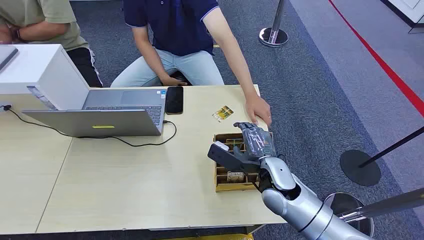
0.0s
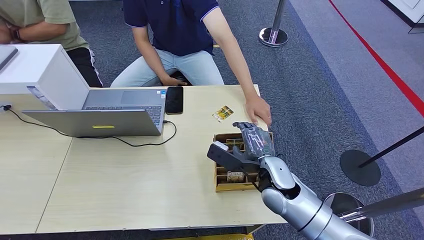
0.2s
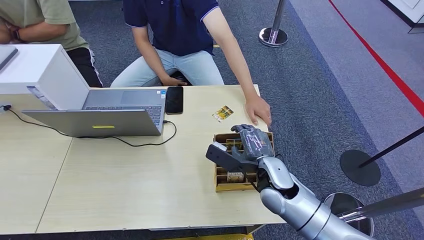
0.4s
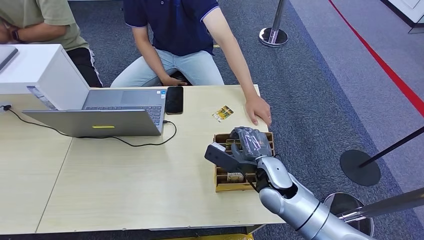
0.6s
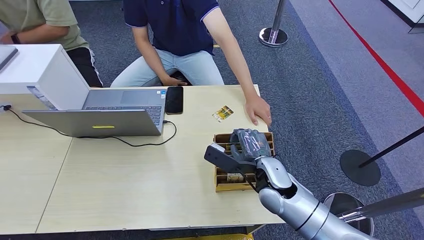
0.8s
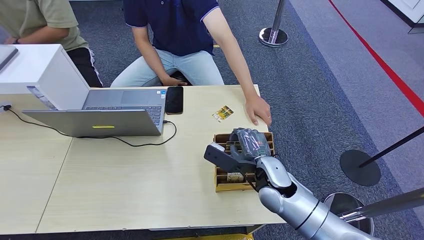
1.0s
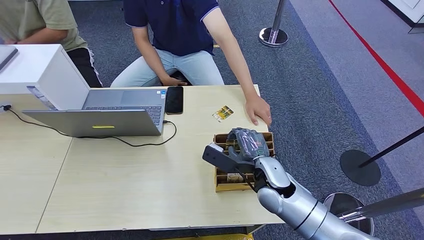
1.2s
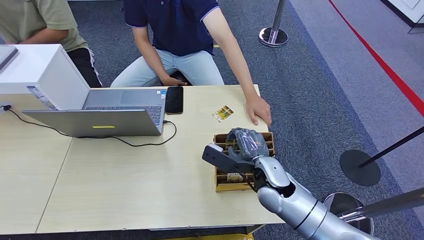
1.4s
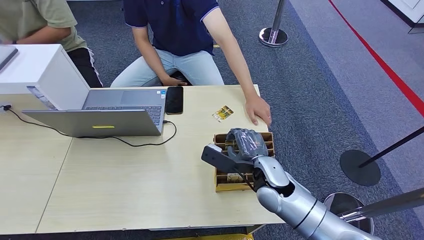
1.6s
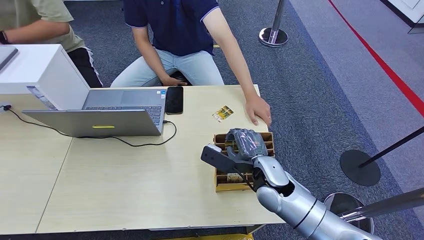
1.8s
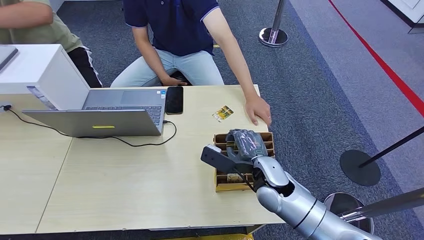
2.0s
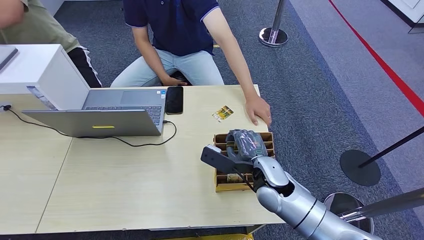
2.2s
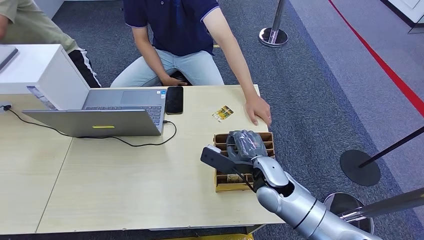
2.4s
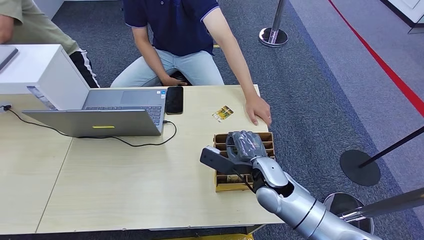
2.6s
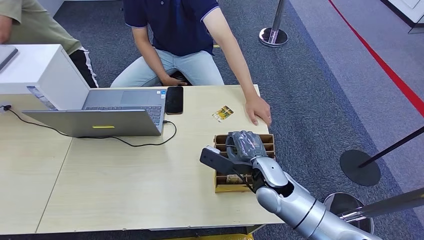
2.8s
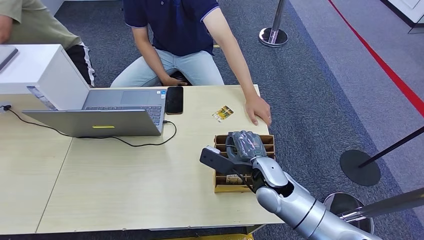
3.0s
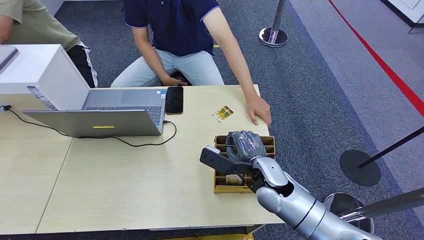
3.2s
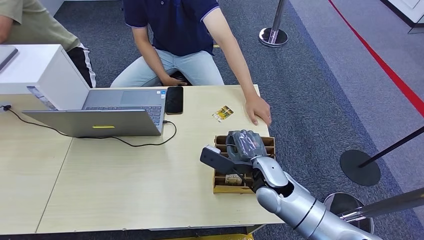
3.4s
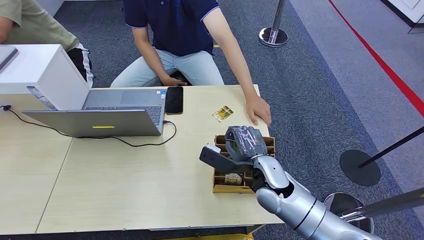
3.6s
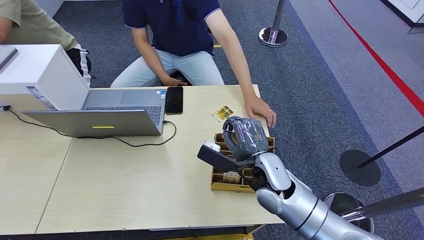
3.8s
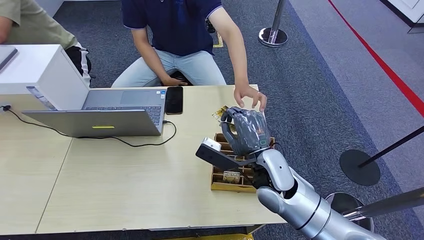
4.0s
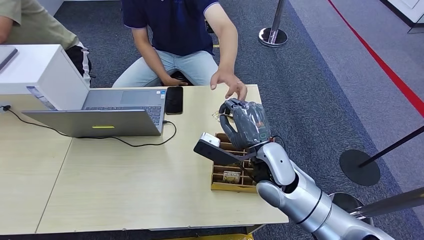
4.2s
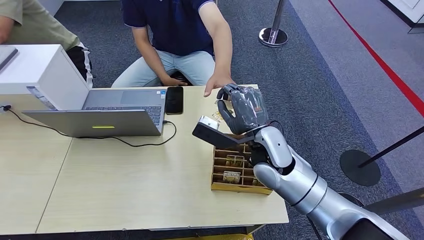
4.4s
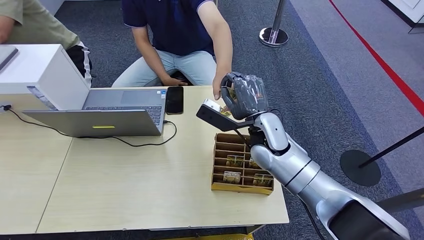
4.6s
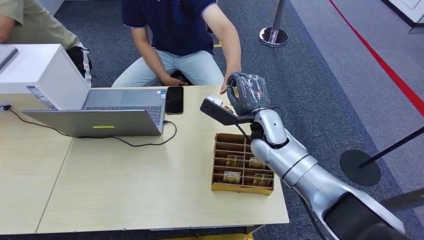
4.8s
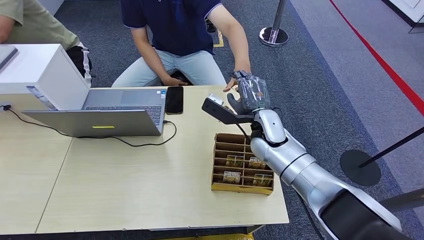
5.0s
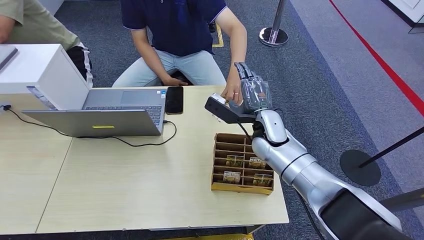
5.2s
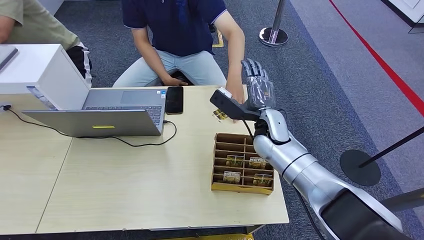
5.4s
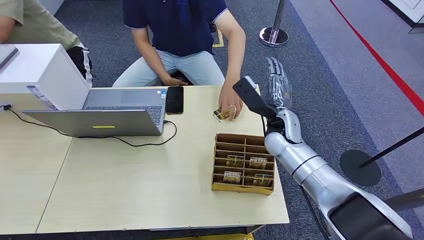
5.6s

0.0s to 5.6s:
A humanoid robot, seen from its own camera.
Step, 0.0s to 3.6s: Pick up the key card from the card box.
Step, 3.8s to 5.4s: Hand the key card to the target.
1.4s to 2.8s: Both hands stay about where they are.
2.8s to 4.2s: The right hand heads upward, covering some 5 cm.
4.2s to 5.6s: The right hand is displaced forward and to the right by approximately 15 cm.

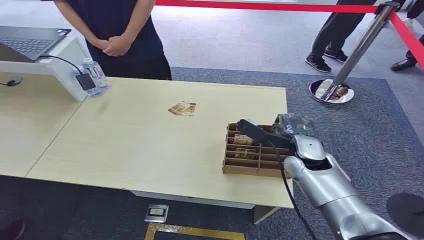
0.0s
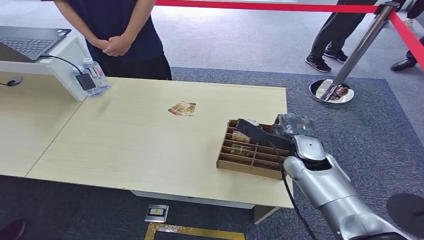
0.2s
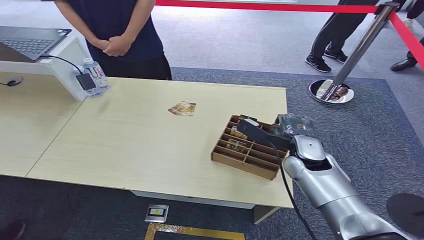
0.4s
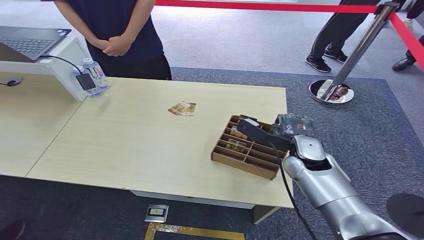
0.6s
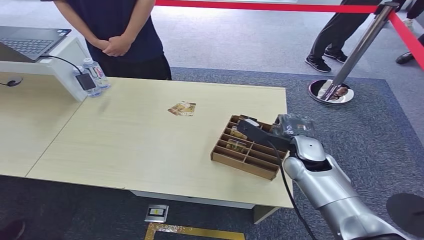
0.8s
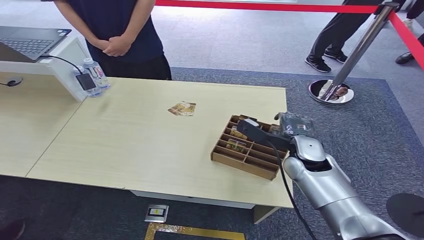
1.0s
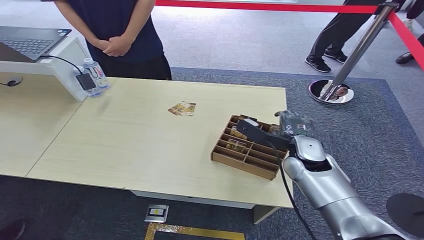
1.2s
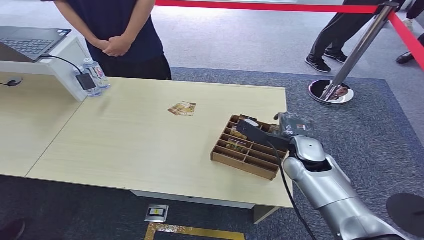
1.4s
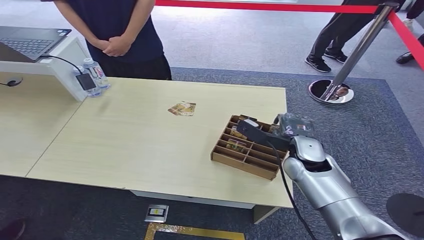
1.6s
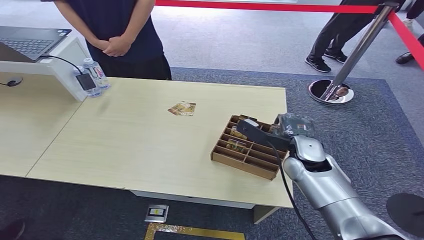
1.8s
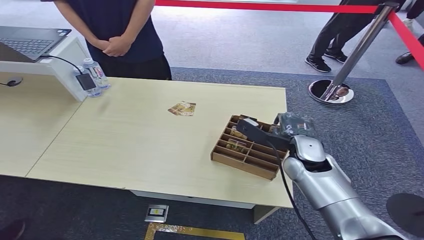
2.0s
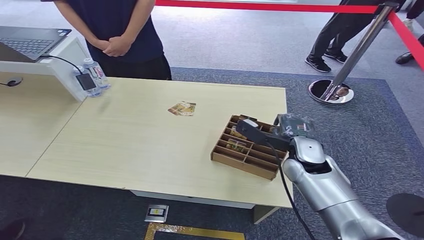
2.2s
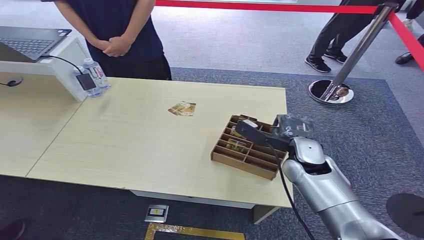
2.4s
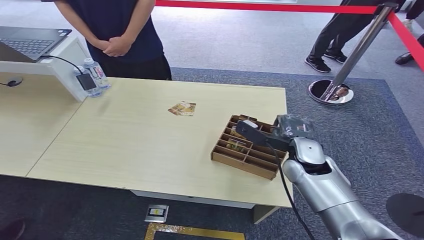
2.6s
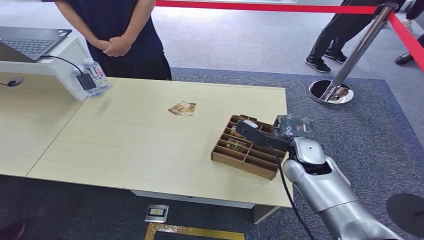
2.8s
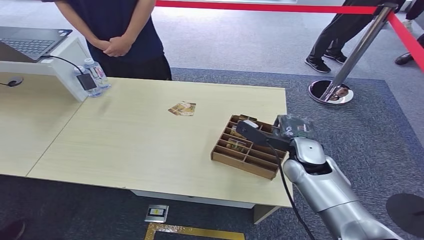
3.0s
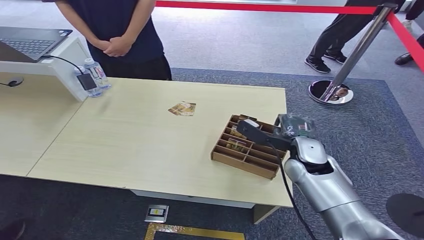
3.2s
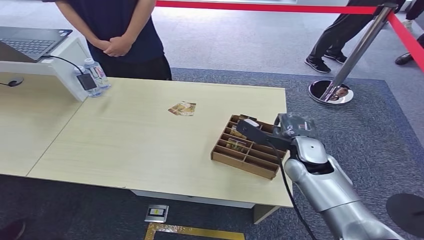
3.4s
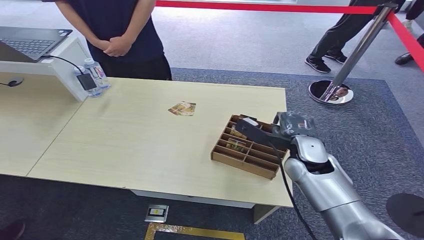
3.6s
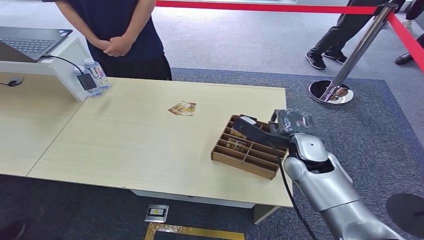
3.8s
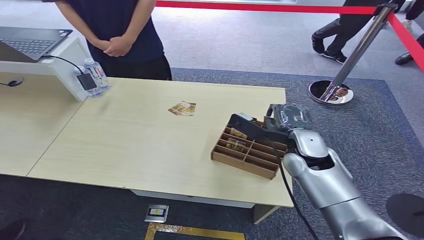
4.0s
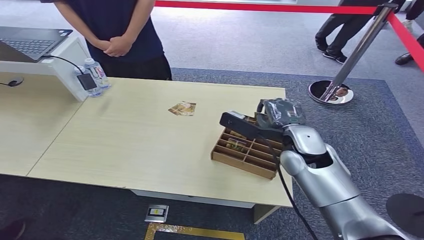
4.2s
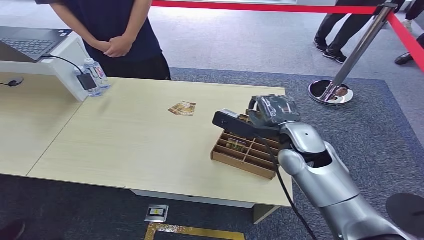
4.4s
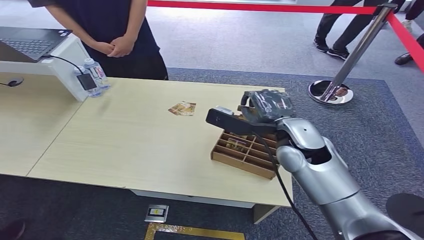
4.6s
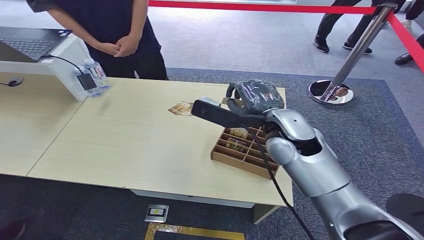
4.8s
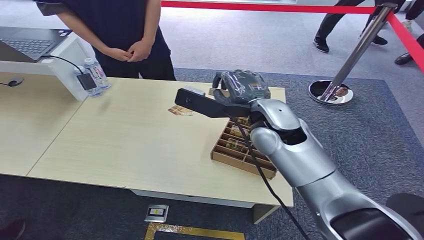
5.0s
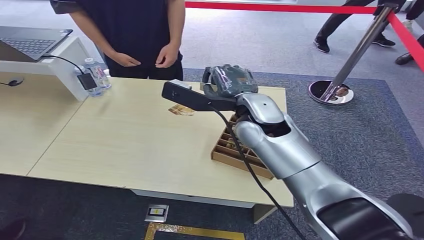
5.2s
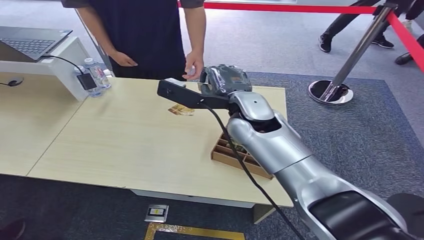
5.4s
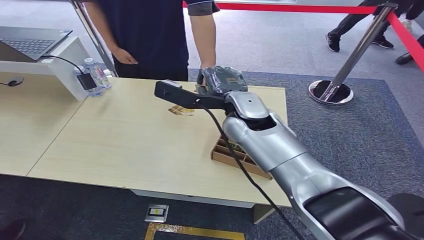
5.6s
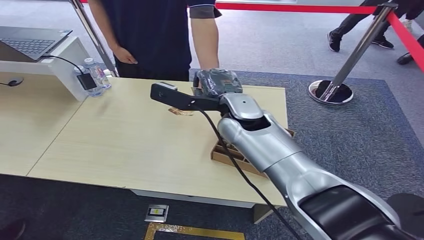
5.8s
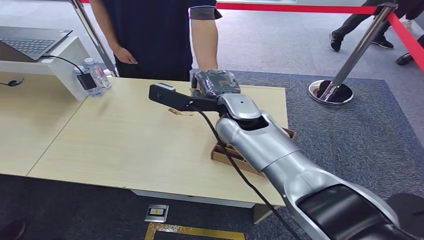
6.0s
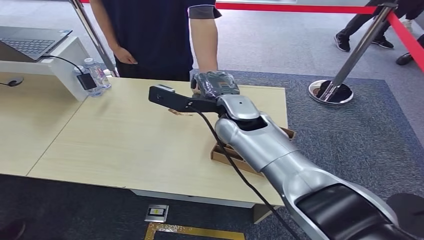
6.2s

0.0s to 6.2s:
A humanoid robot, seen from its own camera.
Step, 0.0s to 3.8s: Pick up the key card from the card box.
Step, 4.0s to 6.2s: Hand the key card to the target.
1.6s to 3.2s: The two hands keep their place.
3.2s to 4.6s: The right hand heads upward, covering approximately 10 cm.

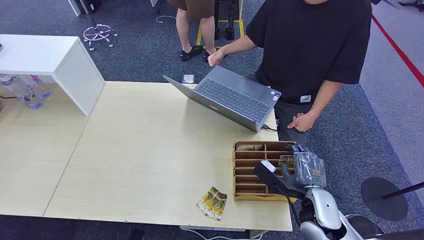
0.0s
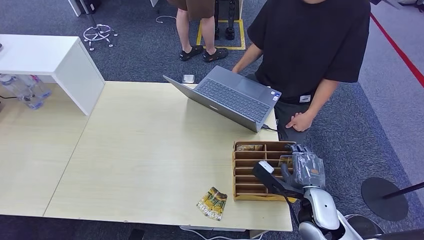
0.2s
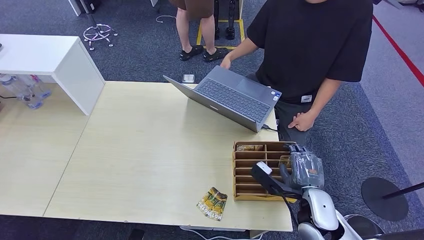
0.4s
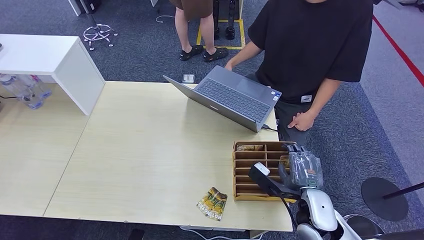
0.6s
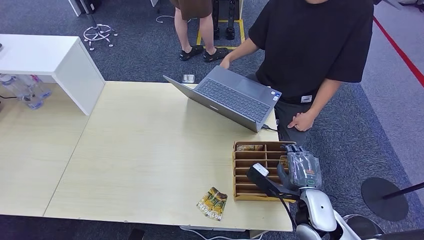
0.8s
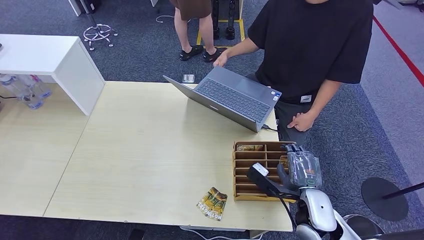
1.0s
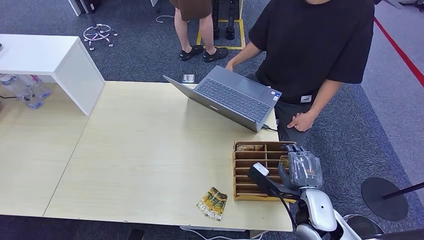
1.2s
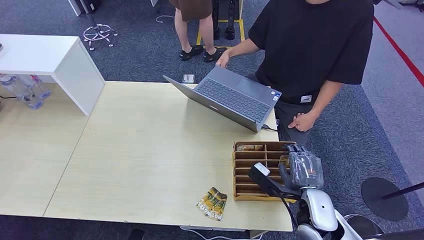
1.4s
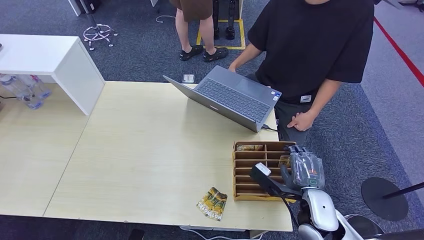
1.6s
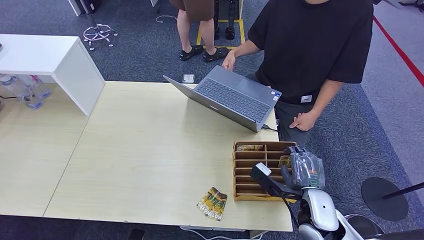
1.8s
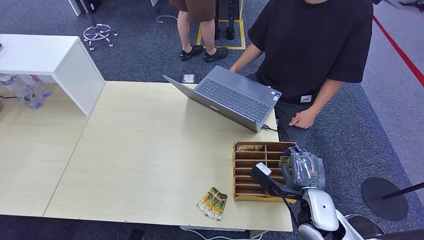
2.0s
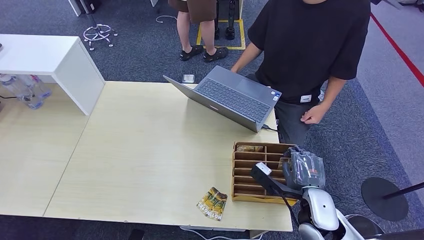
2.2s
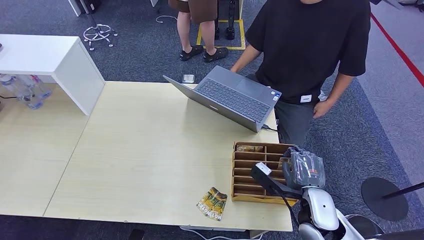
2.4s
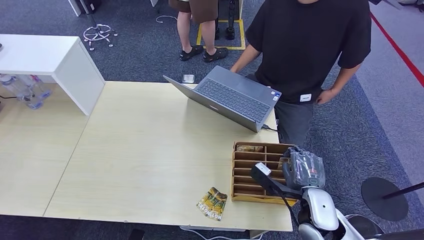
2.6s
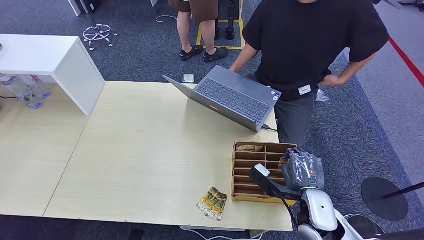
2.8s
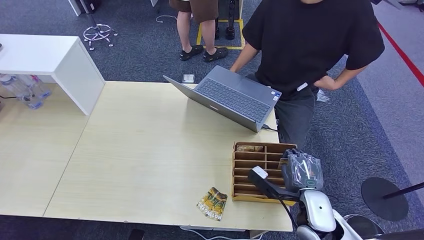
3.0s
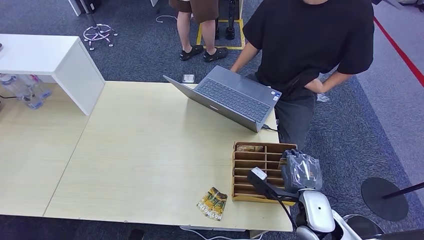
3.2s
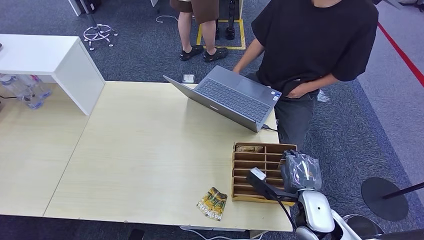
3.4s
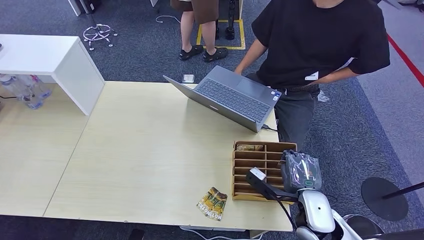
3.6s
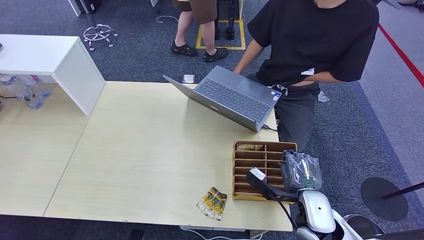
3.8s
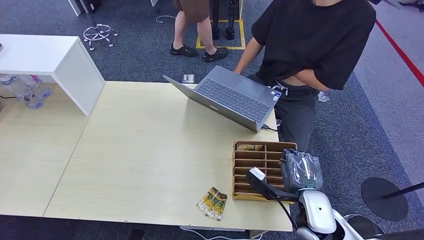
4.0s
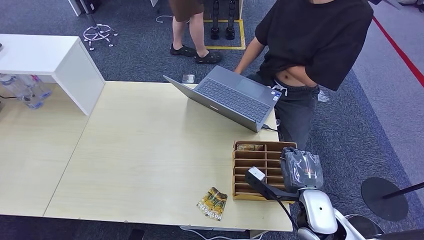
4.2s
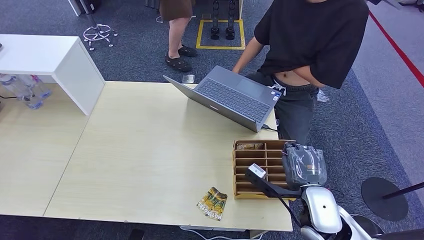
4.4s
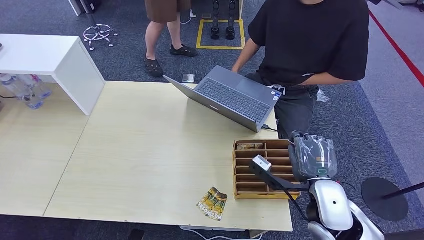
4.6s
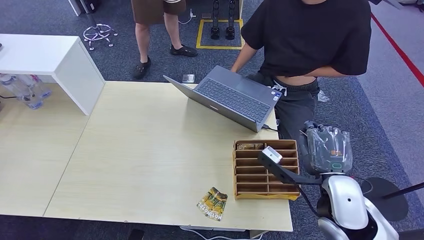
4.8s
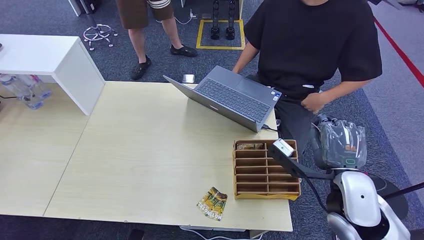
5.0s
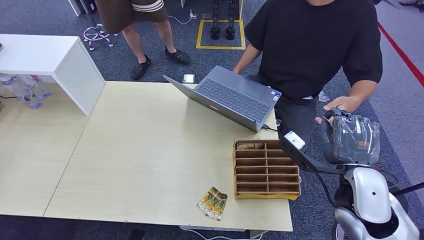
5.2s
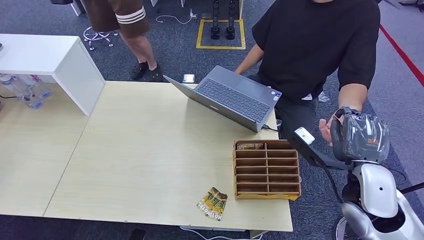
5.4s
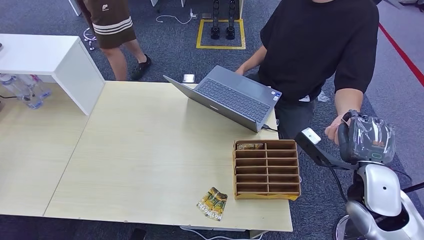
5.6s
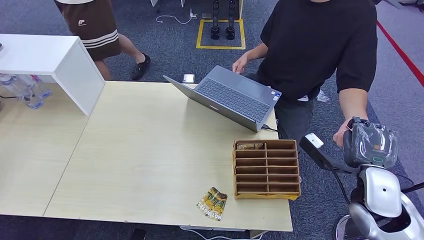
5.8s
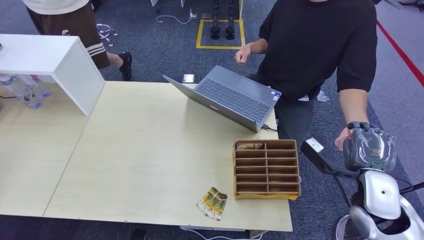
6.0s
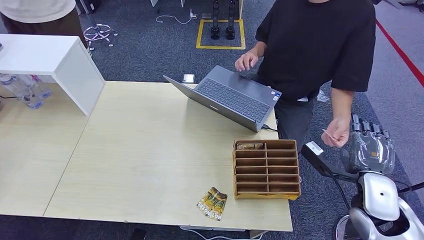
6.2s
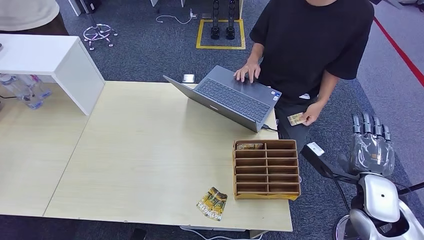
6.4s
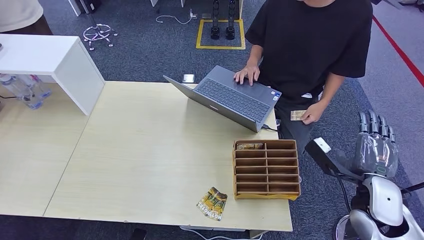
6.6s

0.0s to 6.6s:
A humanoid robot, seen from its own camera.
Step, 0.0s to 4.6s: Pick up the key card from the card box.
Step, 4.8s to 6.6s: Hand the key card to the target.
1.6s to 3.2s: The hands stay close to where they were, moving slightly.
3.2s to 5.0s: The right hand shifts roughly 10 cm upward.
5.0s to 6.6s: The right hand shifts roughly 10 cm to the right and downward.
